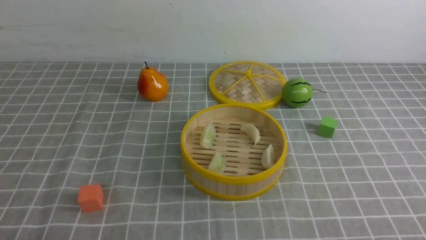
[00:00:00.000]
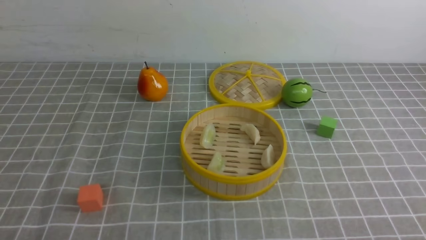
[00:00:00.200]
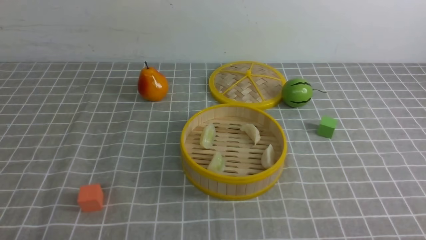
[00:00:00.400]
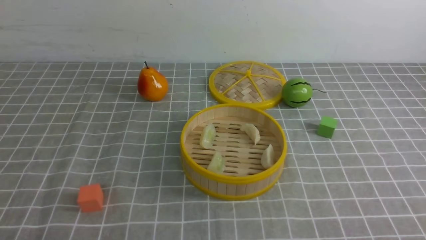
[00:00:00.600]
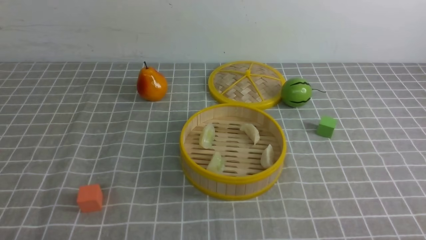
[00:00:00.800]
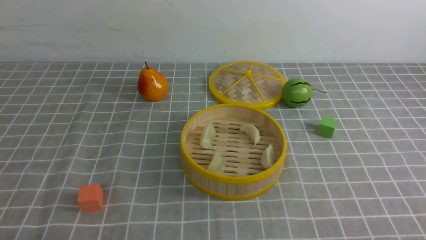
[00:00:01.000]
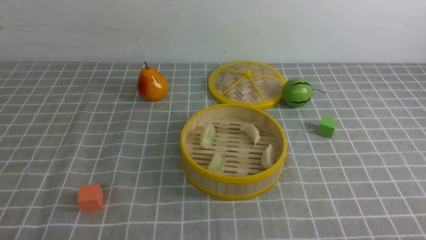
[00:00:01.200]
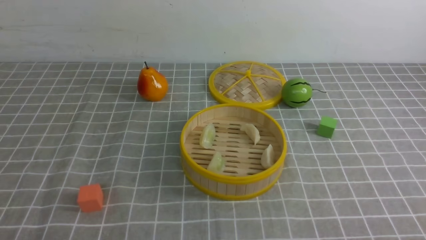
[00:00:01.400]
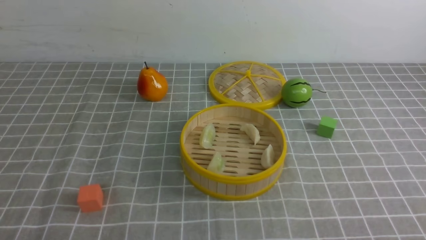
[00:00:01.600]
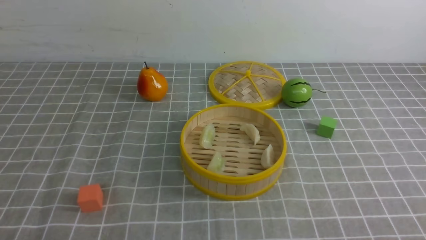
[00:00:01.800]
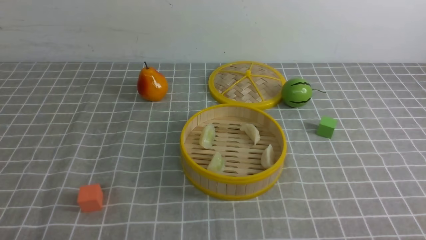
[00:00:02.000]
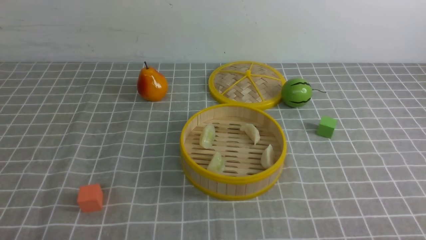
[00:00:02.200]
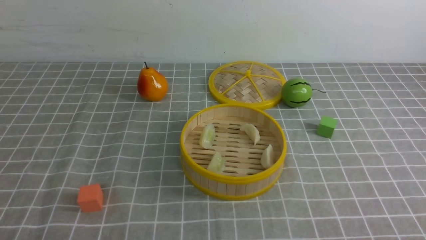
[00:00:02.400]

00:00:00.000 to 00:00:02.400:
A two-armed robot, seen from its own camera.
Task of the whole recording: put the dumplings into the steamer on the table with the grey tablecloth.
00:00:01.200 to 00:00:02.400: Both grippers stay put.
